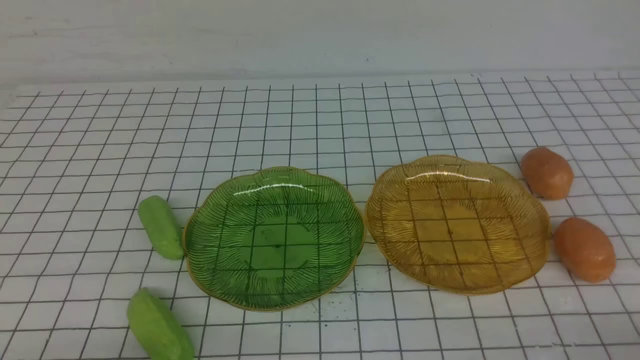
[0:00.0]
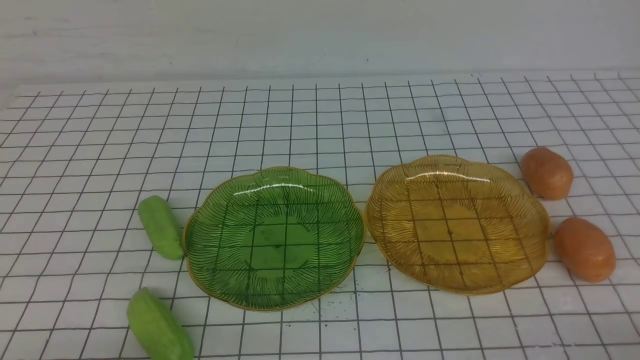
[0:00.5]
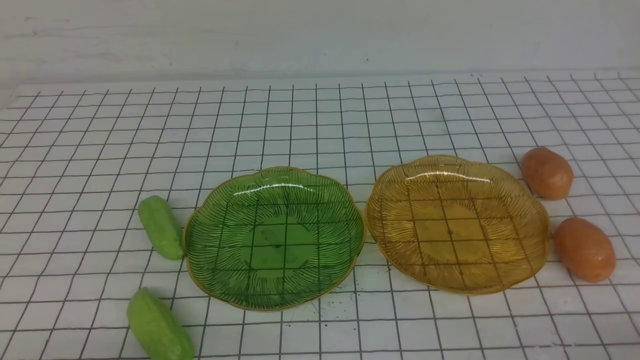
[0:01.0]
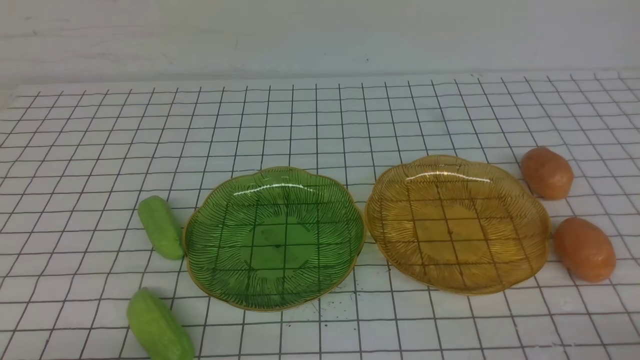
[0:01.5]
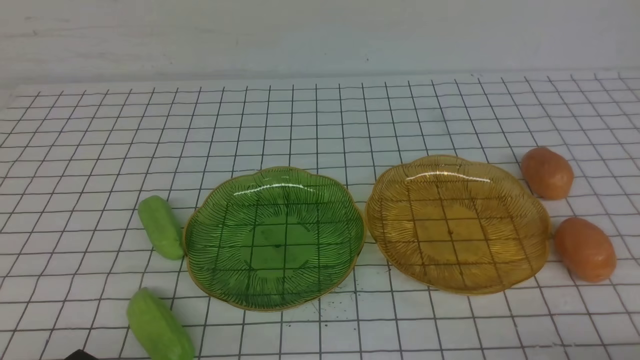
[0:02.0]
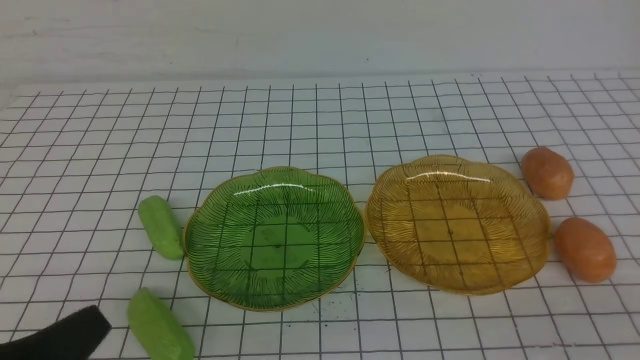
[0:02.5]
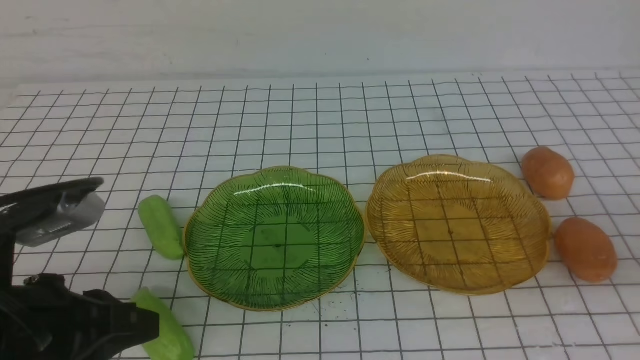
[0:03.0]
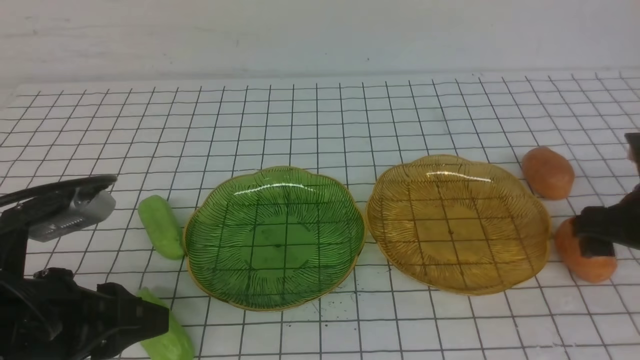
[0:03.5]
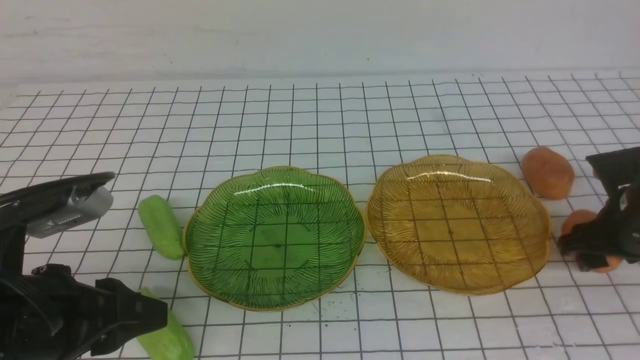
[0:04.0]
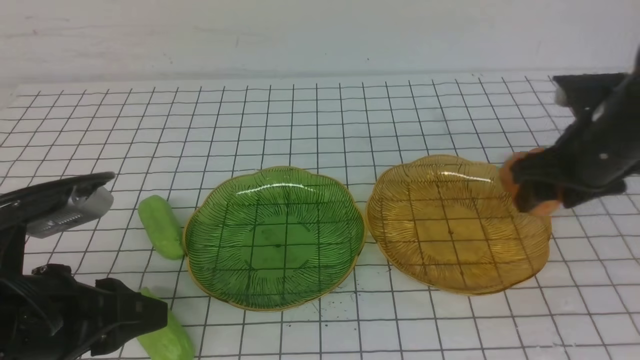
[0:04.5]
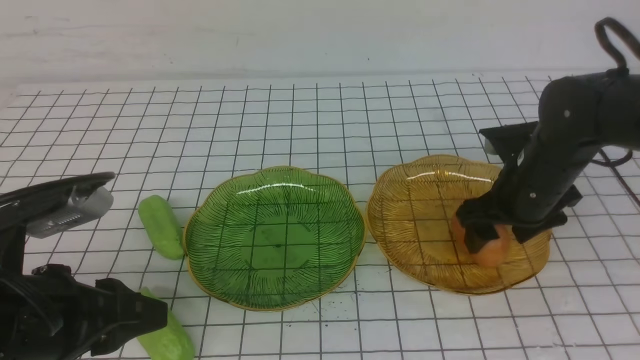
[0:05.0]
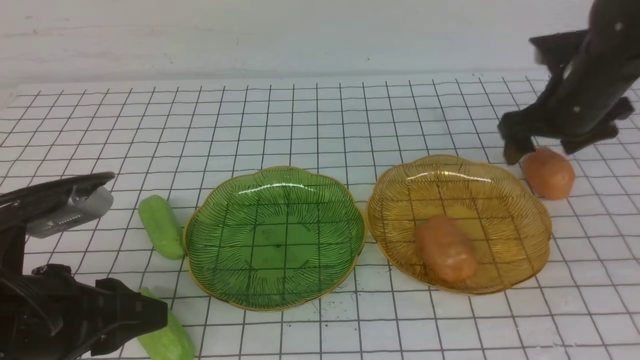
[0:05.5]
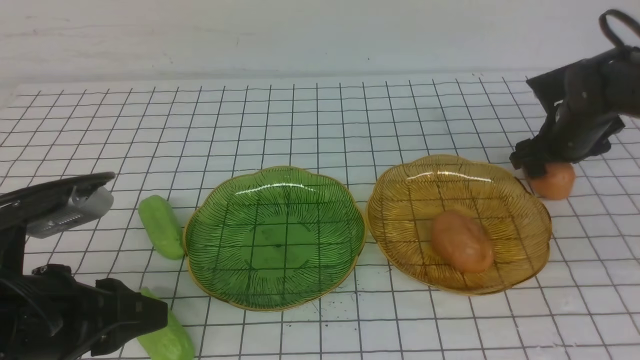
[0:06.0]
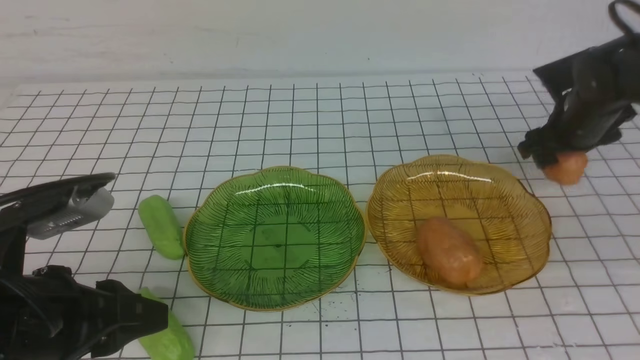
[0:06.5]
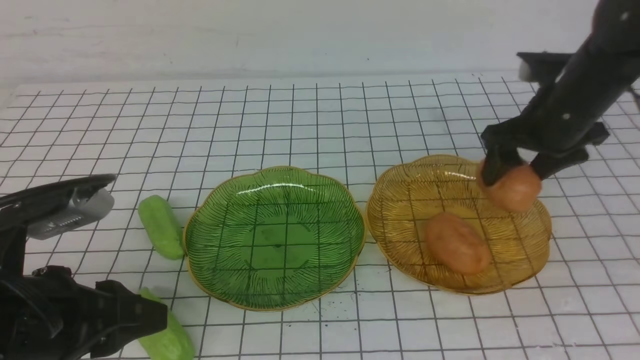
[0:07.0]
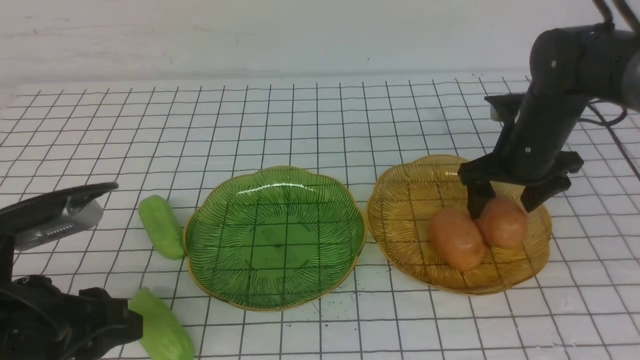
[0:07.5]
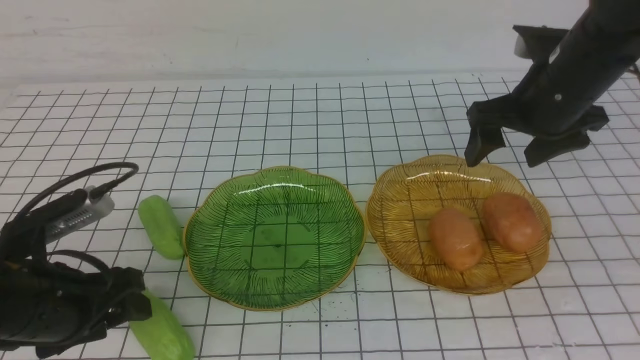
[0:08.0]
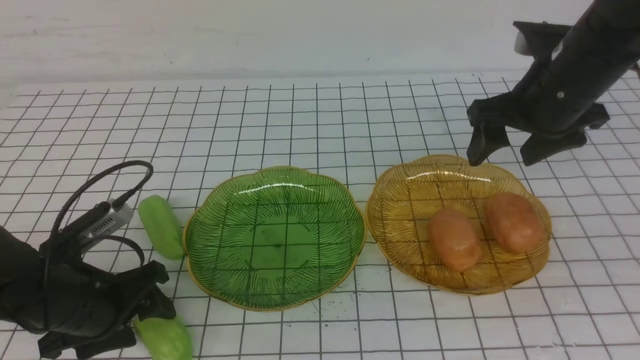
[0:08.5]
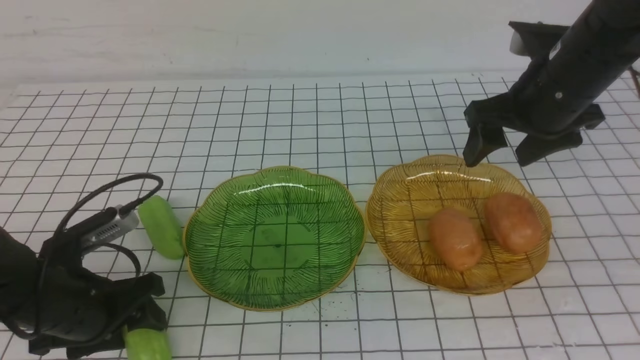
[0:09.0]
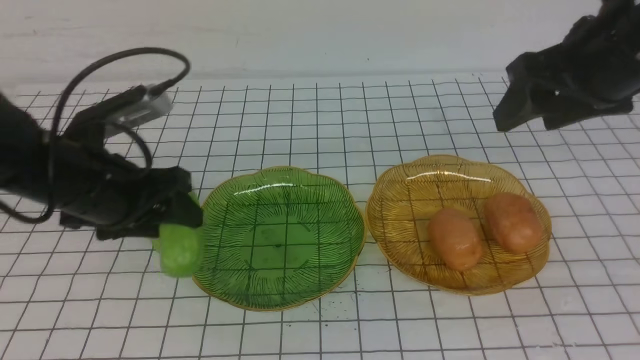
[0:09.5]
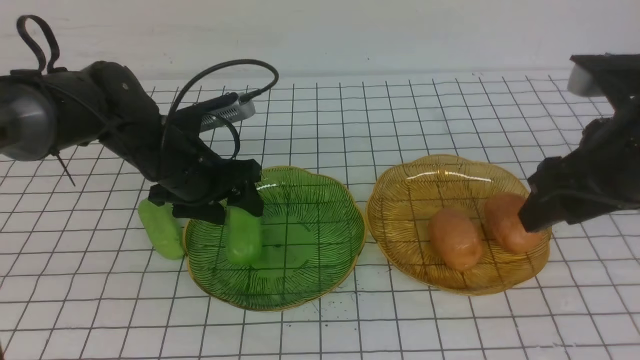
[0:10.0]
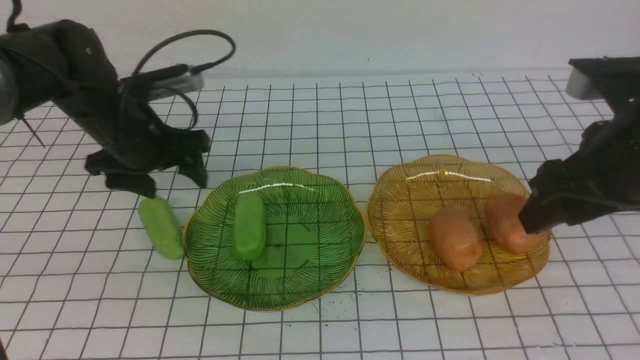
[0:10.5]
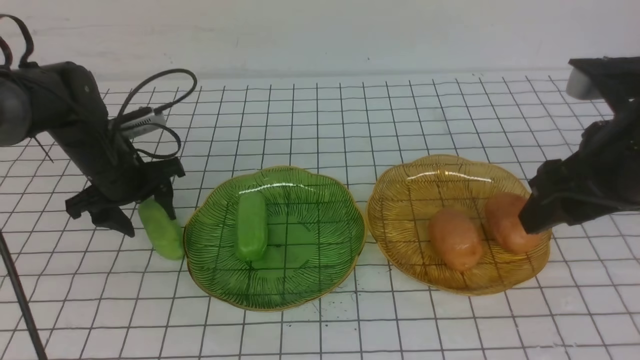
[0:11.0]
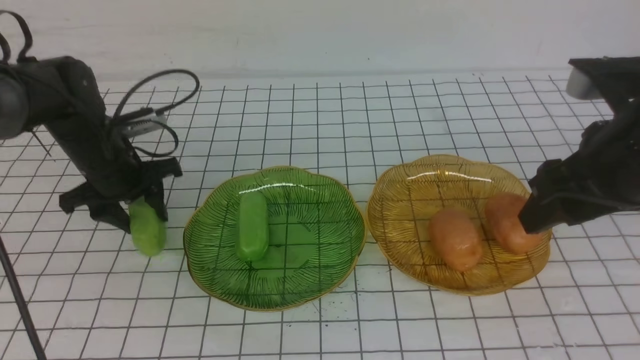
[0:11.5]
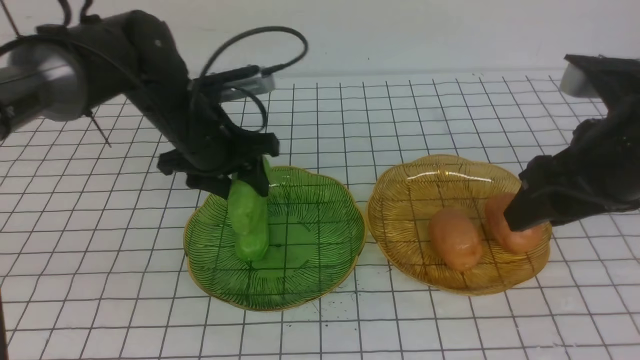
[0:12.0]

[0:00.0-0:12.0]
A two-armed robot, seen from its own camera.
Step, 0:00.0 to 0:07.5: Grab a potato with your right arm and put it on the right plate.
0:02.0 to 0:04.0: The left gripper heads forward and upward, covering some 15 cm, and opens up. The right gripper is displaced forward by about 25 cm, and opens up.
0:04.0 to 0:06.0: The right gripper moves forward, about 15 cm.
0:06.0 to 0:08.0: The left gripper moves downward, roughly 5 cm, and opens. The right gripper shifts approximately 15 cm upward, to the left and backward.
0:08.0 to 0:10.0: The right gripper shifts about 10 cm backward. Meanwhile the left gripper goes roughly 20 cm forward and to the right.
0:10.0 to 0:12.0: The left gripper travels to the left and back again, approximately 10 cm each way.

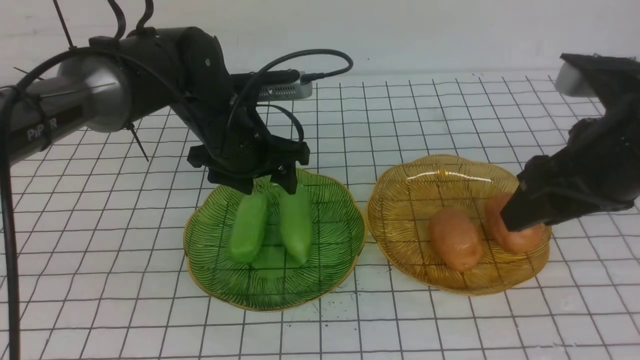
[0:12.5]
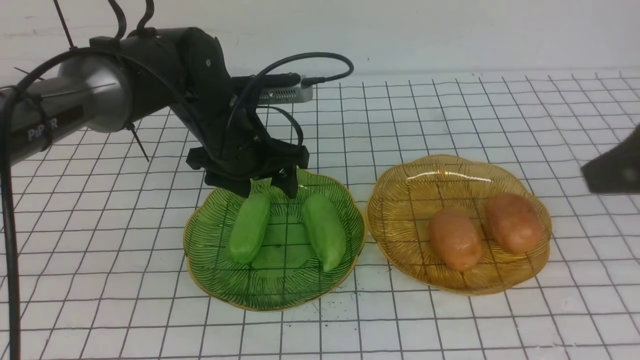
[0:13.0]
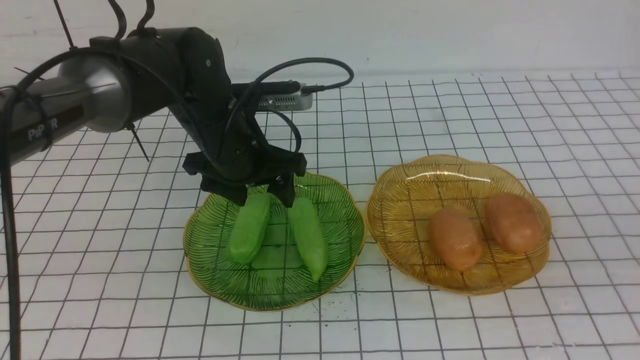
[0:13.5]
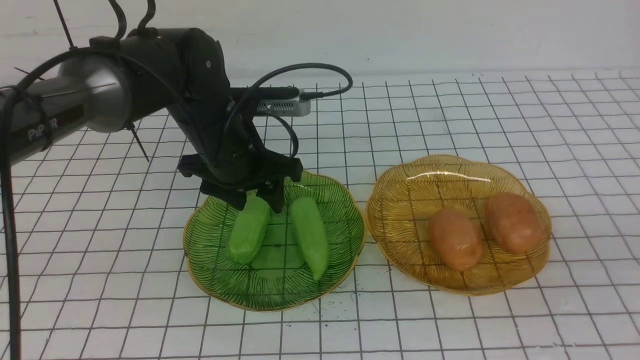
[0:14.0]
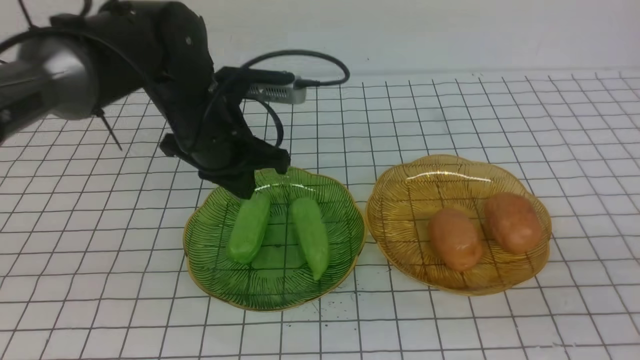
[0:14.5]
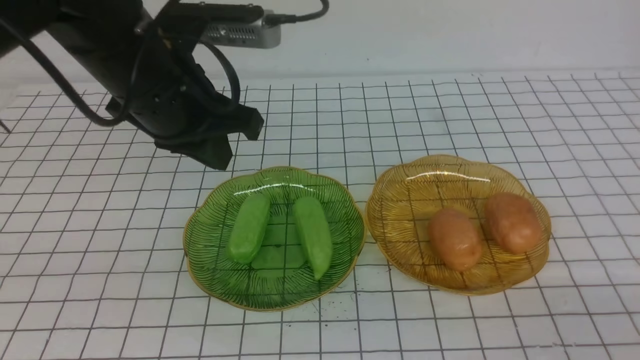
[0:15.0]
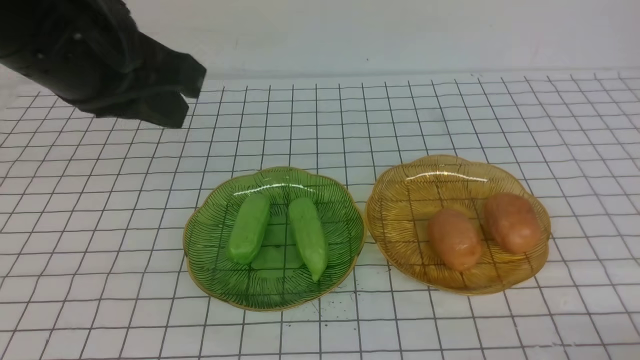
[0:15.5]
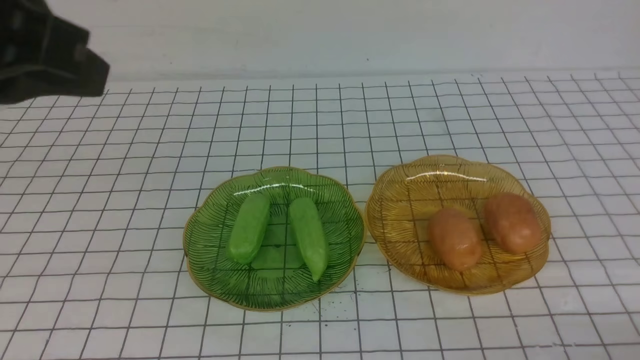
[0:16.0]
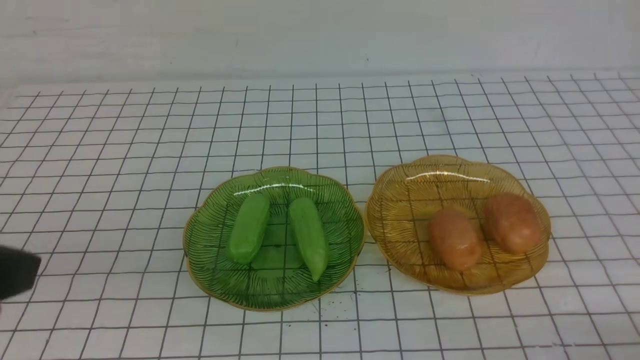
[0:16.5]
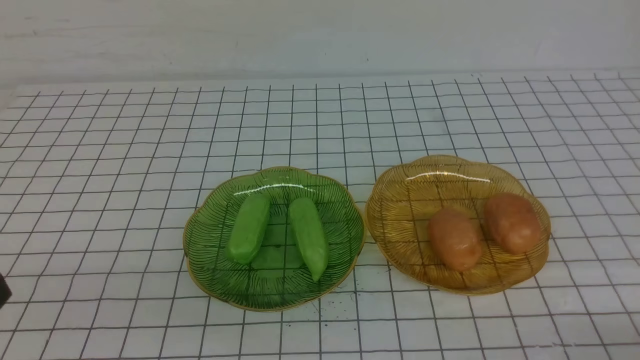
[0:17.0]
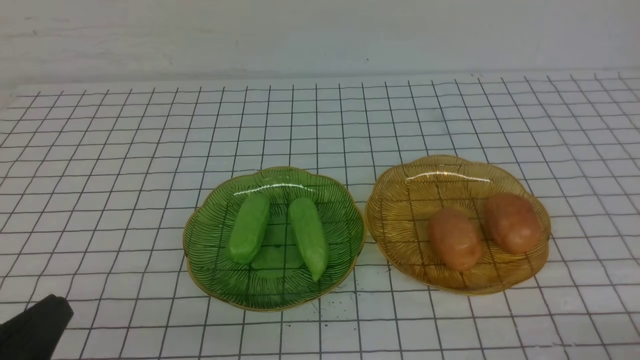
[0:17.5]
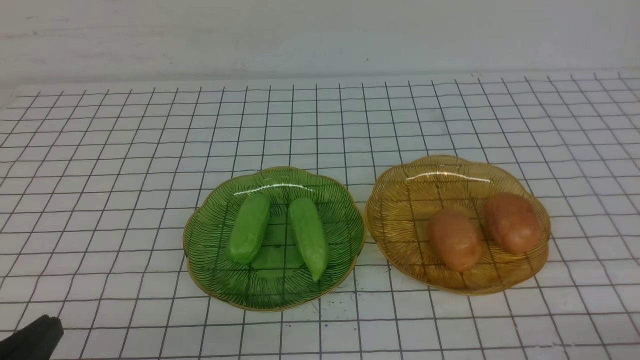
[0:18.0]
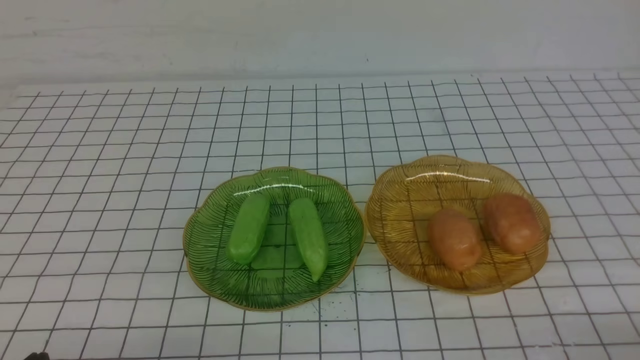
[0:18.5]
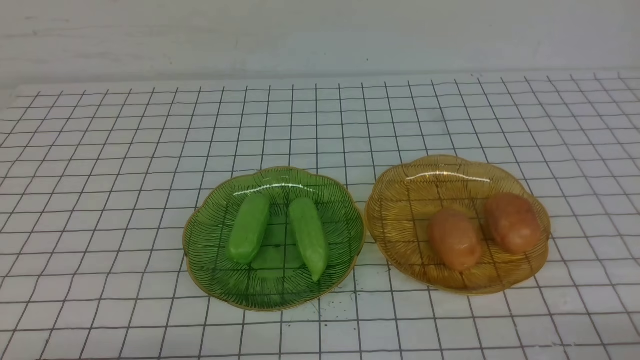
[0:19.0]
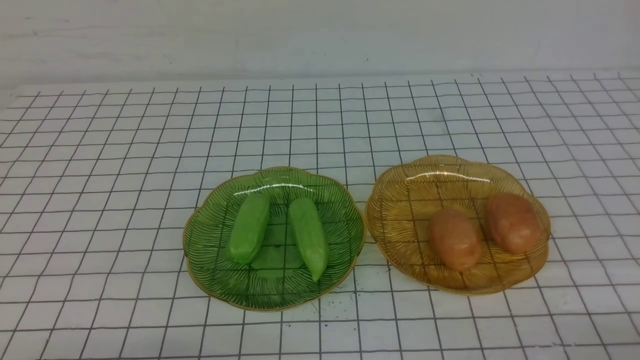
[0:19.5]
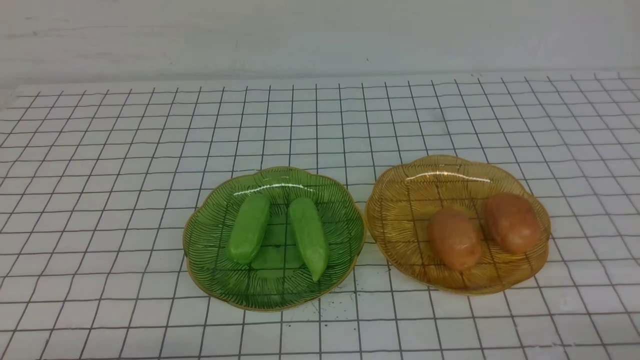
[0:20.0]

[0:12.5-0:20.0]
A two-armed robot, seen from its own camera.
0:12.5 to 0:14.5: The right gripper goes approximately 15 cm backward, and closes. The left gripper shifts by roughly 5 cm, and closes.
0:14.5 to 0:16.5: The left gripper shifts approximately 25 cm backward; the right gripper goes about 10 cm downward.
0:16.5 to 0:18.0: The left gripper is displaced downward by about 20 cm.
